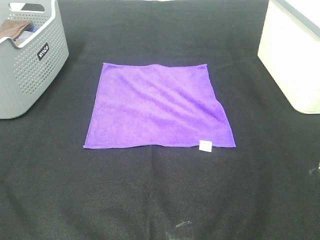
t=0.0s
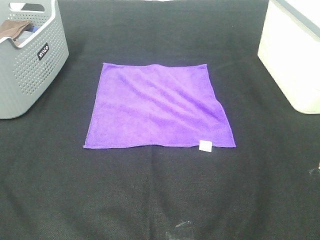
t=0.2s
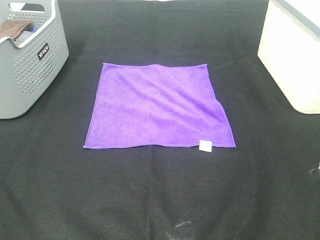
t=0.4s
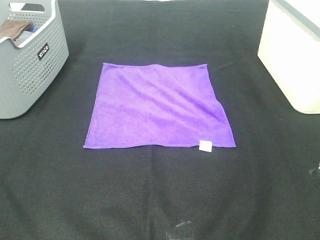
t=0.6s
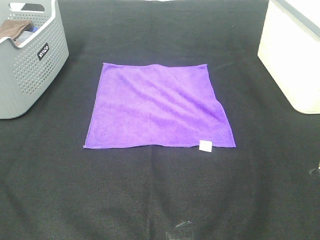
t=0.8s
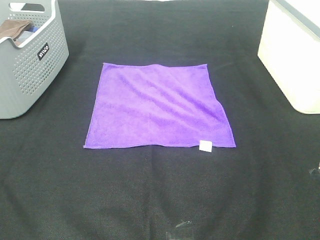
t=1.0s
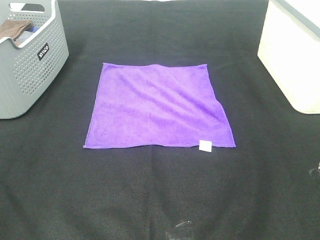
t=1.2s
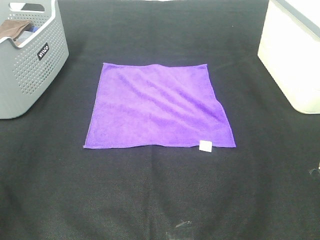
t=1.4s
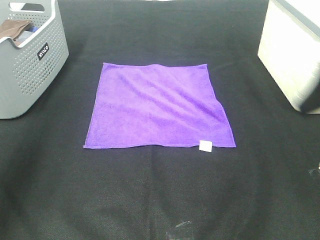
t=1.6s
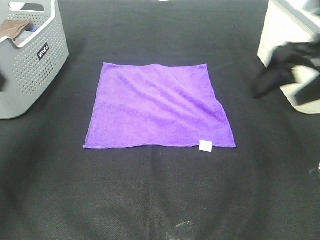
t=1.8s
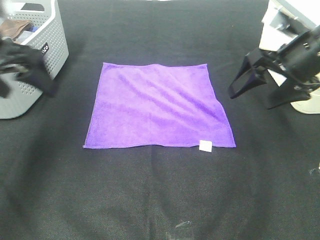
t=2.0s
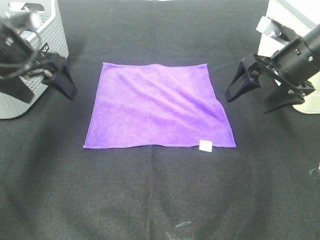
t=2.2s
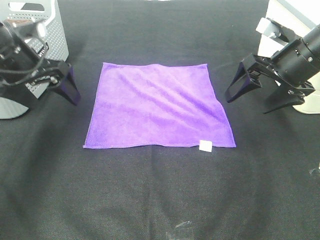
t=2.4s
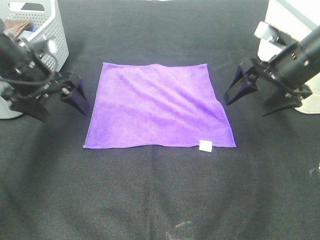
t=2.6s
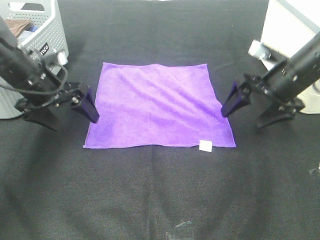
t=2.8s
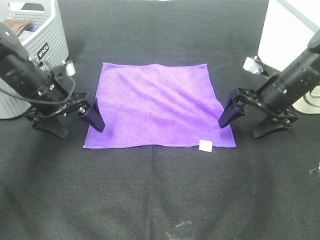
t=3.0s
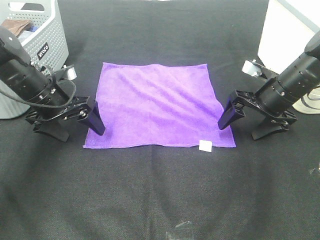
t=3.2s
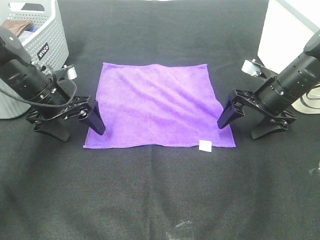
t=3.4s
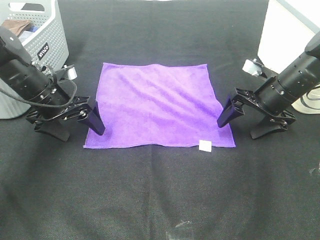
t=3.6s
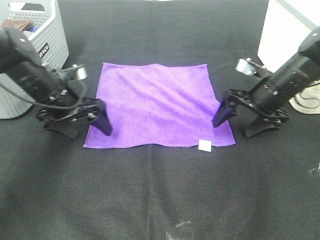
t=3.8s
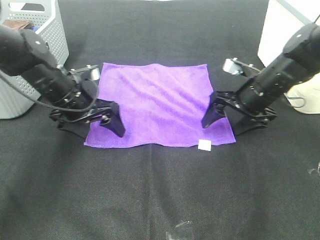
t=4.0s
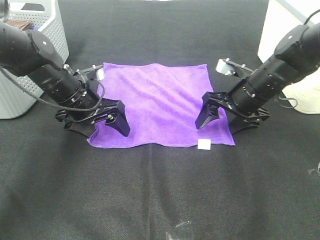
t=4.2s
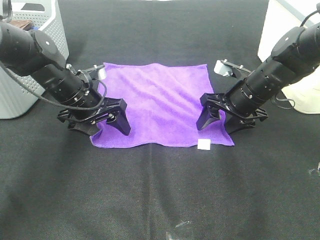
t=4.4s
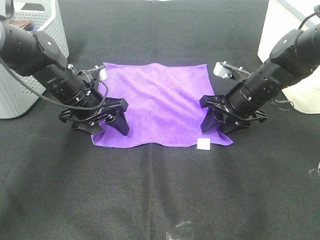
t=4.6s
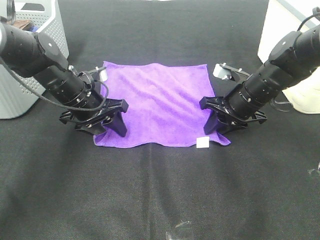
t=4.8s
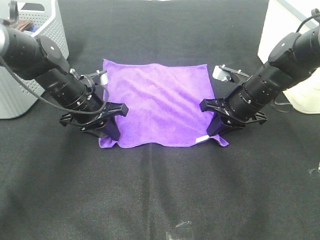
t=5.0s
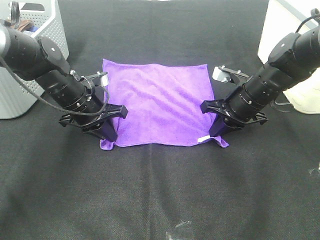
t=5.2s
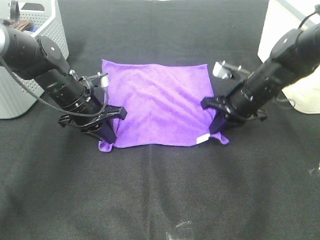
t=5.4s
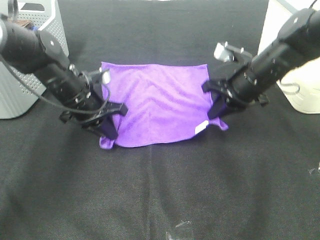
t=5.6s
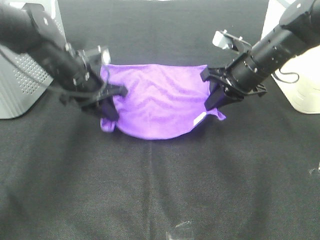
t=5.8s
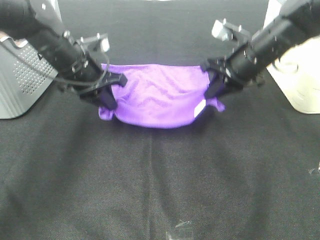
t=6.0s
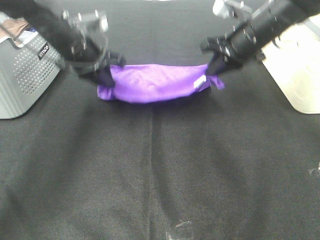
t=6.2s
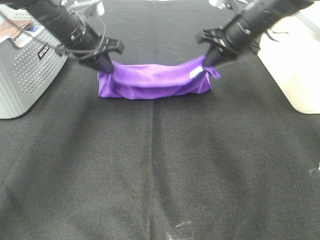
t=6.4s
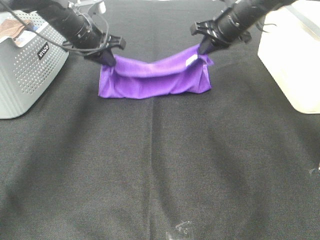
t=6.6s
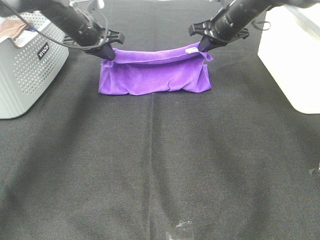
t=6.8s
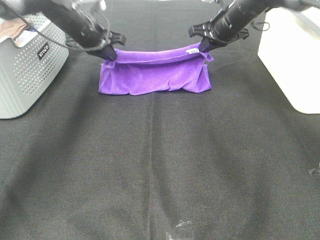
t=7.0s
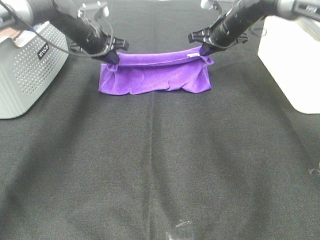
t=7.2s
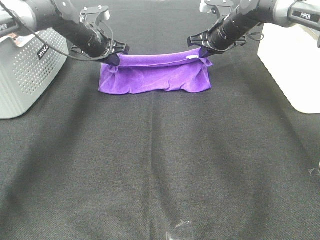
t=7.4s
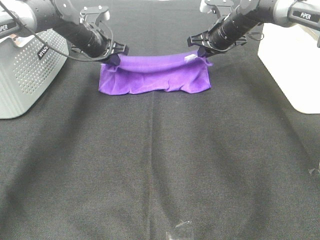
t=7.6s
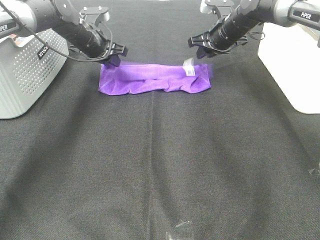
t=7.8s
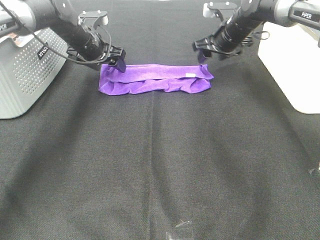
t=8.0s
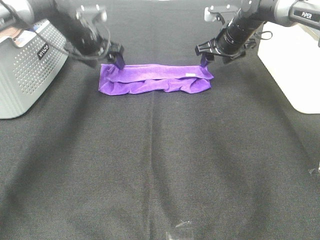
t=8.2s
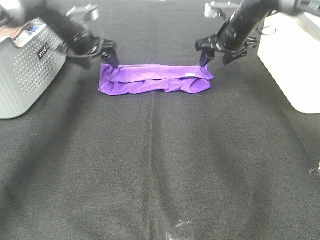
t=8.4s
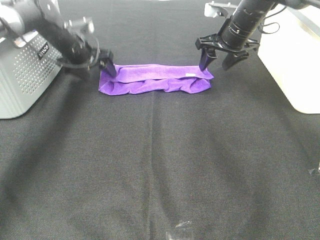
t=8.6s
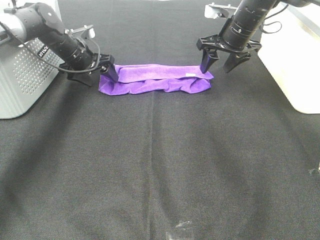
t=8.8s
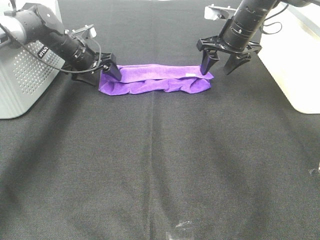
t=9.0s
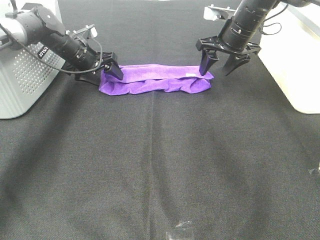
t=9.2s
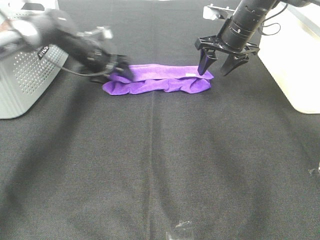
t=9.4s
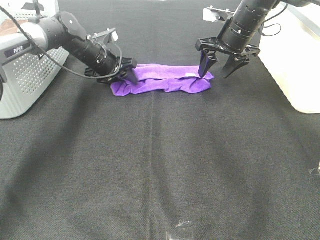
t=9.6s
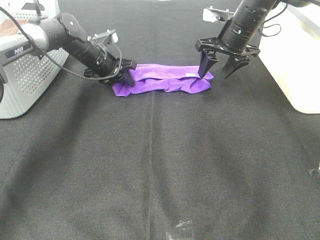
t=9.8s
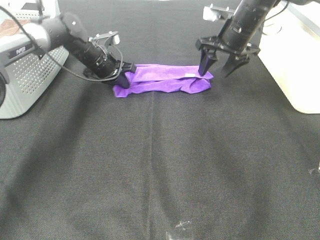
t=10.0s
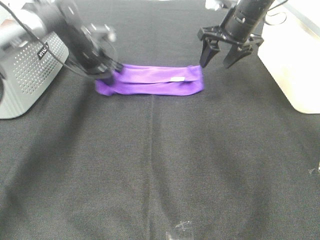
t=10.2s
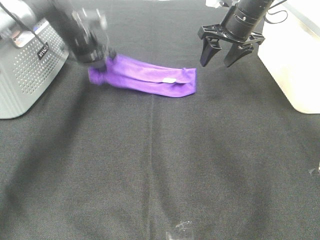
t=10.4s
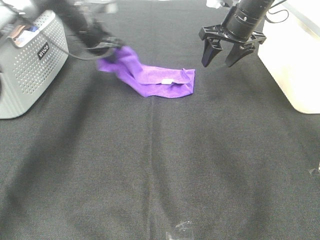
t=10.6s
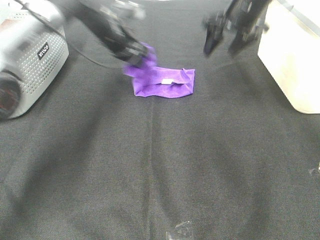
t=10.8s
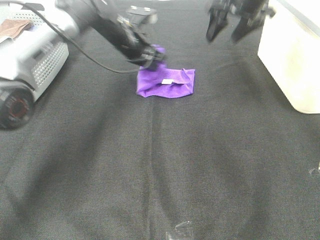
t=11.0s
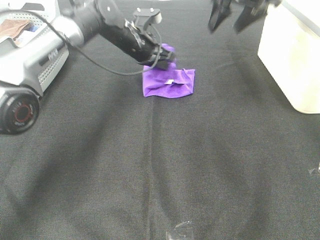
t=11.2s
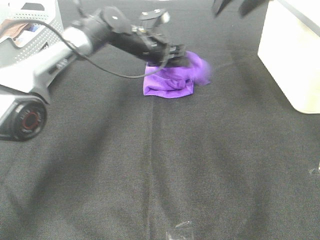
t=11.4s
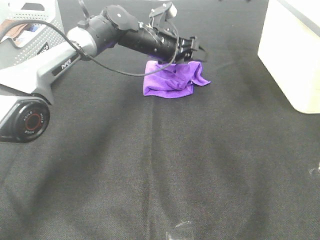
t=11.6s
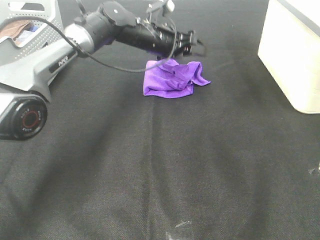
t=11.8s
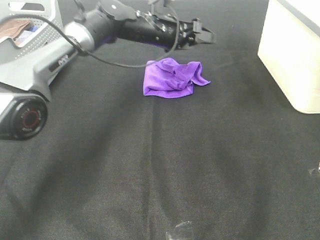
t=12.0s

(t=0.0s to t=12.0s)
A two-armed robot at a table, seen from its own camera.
Task of the whole recording: Fold towels.
Step, t=0.0s - t=5.2s: Left hand: grab the bottom left corner of purple towel.
Step, t=0.0s - t=5.2s: Right hand: grab the bottom right corner of purple towel.
Step, t=5.4s - t=7.4s: Left hand: fold the purple towel up.
Step, t=5.4s - t=7.4s: Right hand: fold the purple towel up.
Step, t=7.6s - t=11.2s: Left hand: fold the purple towel from left to right.
t=0.0s - t=1.6s: Both grippers move forward, approximately 25 cm.
t=1.6s - t=3.0s: The left gripper heads downward, forward and to the right, covering roughly 25 cm; the right gripper moves downward and forward, roughly 20 cm.
t=3.0s - t=4.4s: The right gripper travels to the left by some 5 cm; the left gripper goes roughly 5 cm to the right.
t=4.4s - t=6.0s: The two grippers go approximately 5 cm upward. The right gripper closes; the left gripper closes up.
t=6.0s - t=7.6s: Both grippers travel together forward, roughly 15 cm.
t=7.6s - t=9.0s: The left gripper shifts by some 5 cm, and opens up, while the right gripper shifts by some 5 cm, and opens.
t=9.0s - t=10.4s: The left gripper travels upward by about 5 cm, and closes up.
t=10.4s - t=12.0s: The right gripper travels upward by roughly 15 cm. Meanwhile the left gripper moves to the right, roughly 20 cm, and opens up.

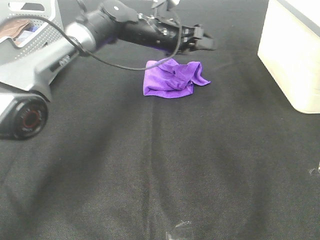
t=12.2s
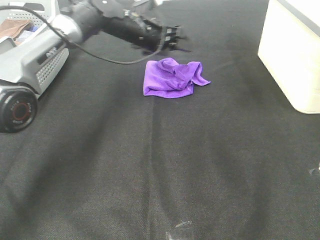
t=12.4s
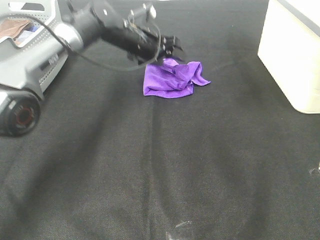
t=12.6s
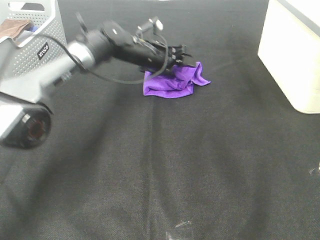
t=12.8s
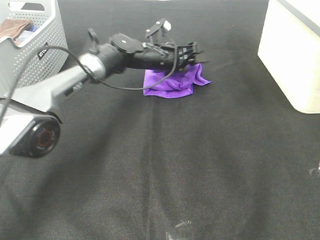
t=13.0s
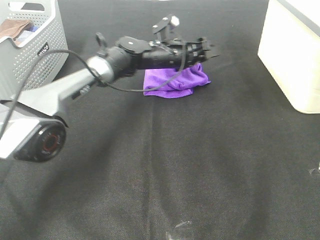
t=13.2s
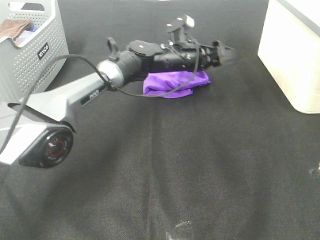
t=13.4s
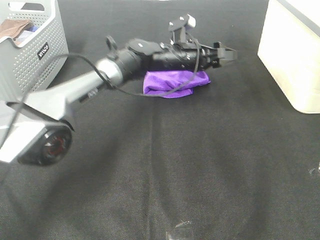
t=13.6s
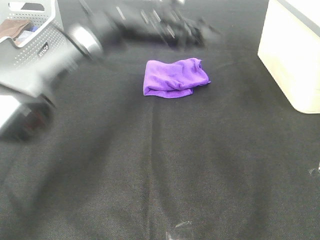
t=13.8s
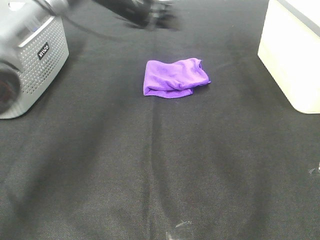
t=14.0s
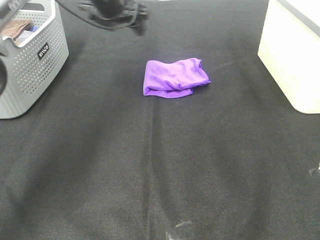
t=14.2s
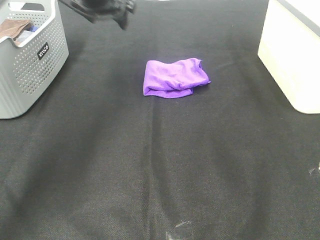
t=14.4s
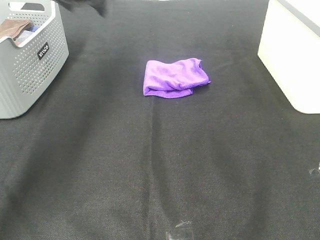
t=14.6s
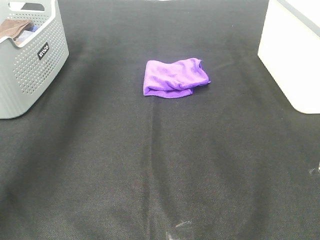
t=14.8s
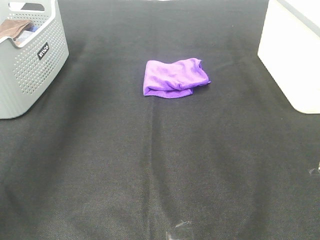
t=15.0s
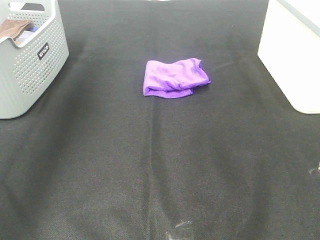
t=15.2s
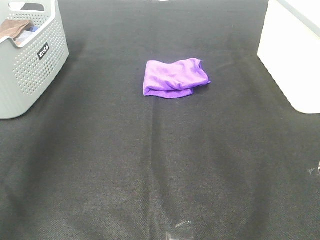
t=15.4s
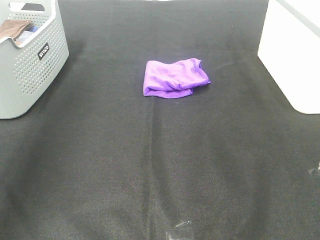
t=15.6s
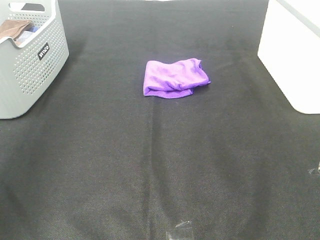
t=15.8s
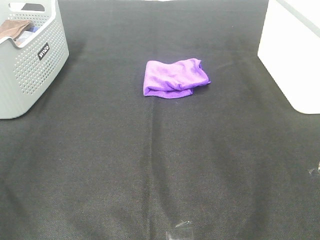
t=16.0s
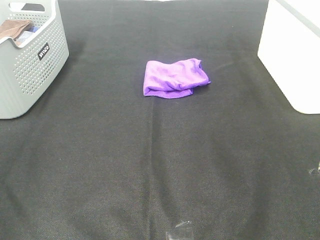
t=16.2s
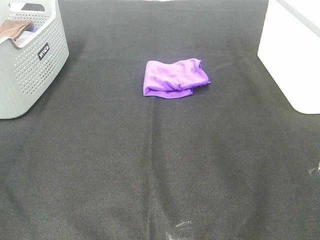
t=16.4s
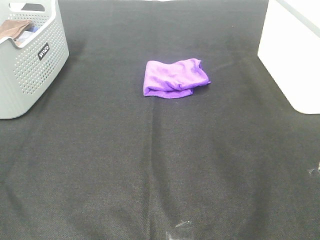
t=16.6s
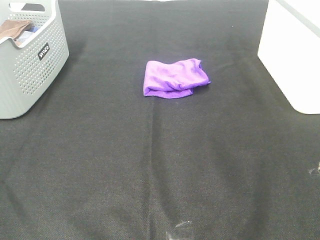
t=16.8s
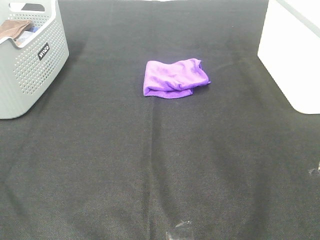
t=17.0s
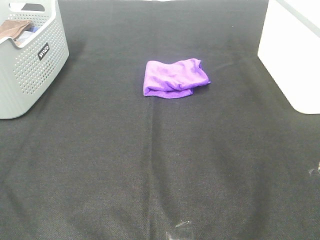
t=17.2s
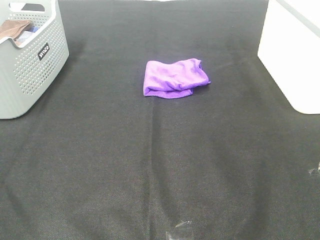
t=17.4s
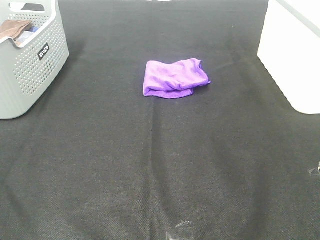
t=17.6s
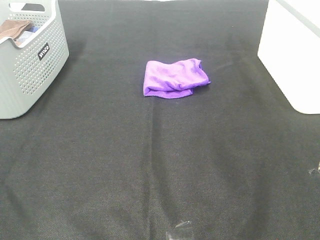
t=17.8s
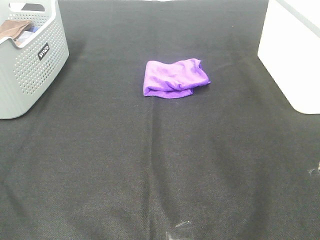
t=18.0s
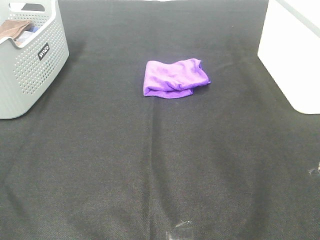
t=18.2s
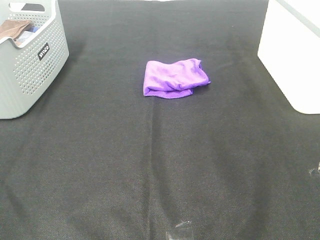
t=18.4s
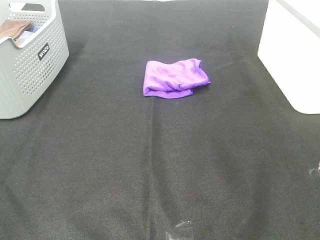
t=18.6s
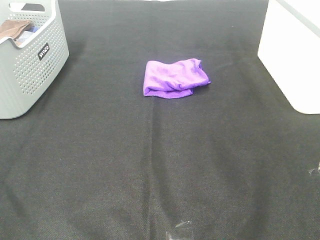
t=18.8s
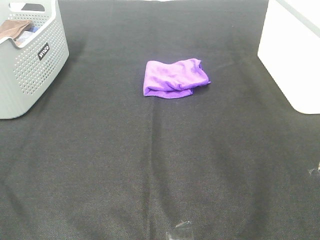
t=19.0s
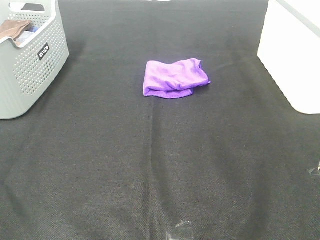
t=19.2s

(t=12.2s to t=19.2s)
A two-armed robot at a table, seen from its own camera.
Task of the whole recording: Fold towels.
t=12.2s - t=13.6s: The left gripper shifts by some 5 cm.
t=13.6s - t=15.0s: The left gripper is displaced to the left and upward by some 40 cm. Meanwhile the right gripper travels backward by roughly 25 cm.
t=15.0s - t=16.4s: The left gripper shifts approximately 40 cm backward.
t=17.8s - t=19.2s: The two grippers keep their place.
